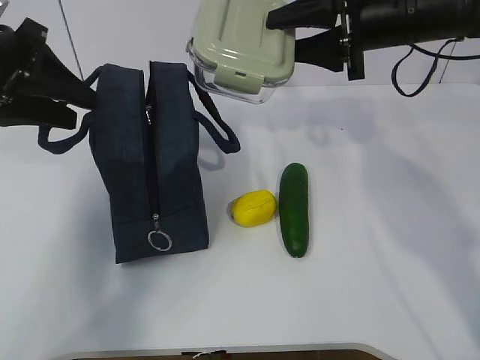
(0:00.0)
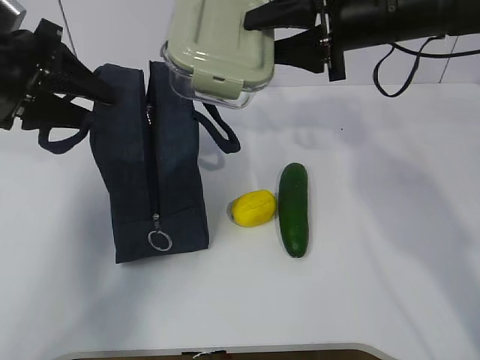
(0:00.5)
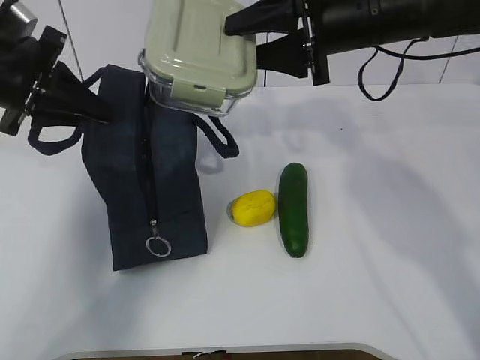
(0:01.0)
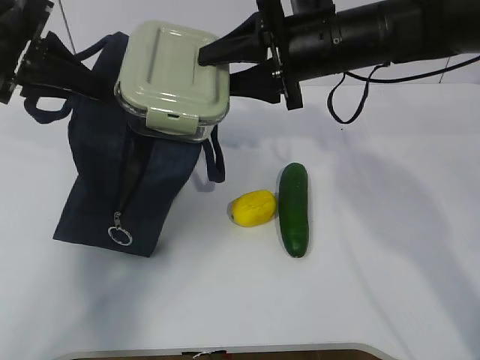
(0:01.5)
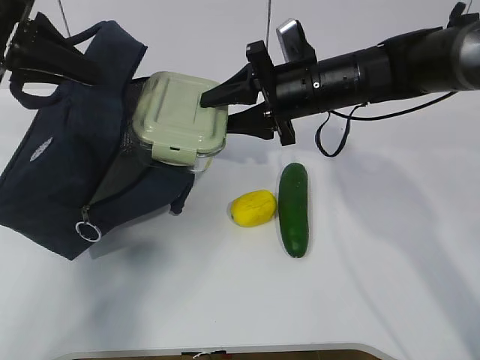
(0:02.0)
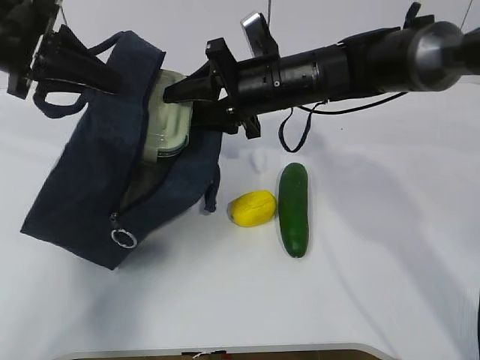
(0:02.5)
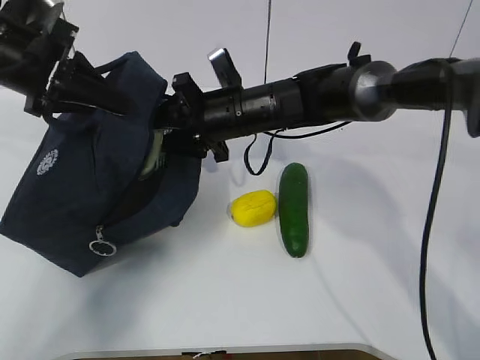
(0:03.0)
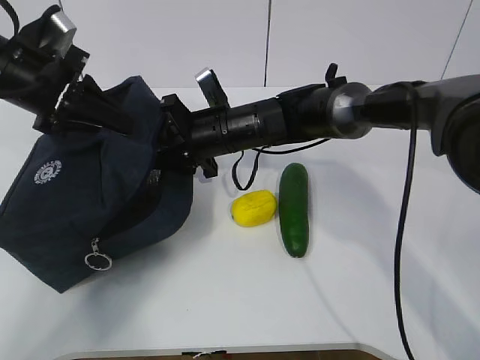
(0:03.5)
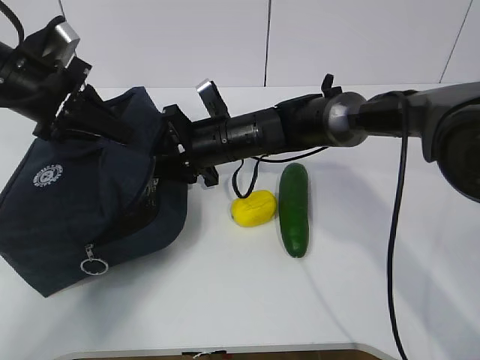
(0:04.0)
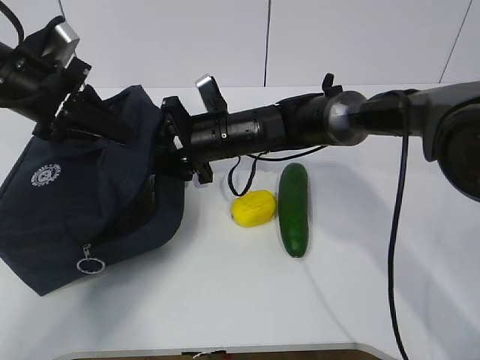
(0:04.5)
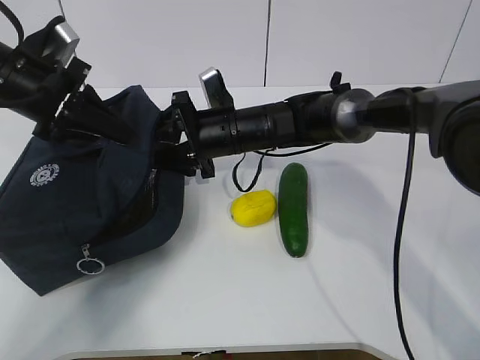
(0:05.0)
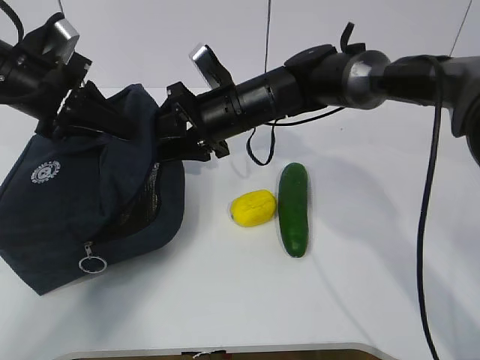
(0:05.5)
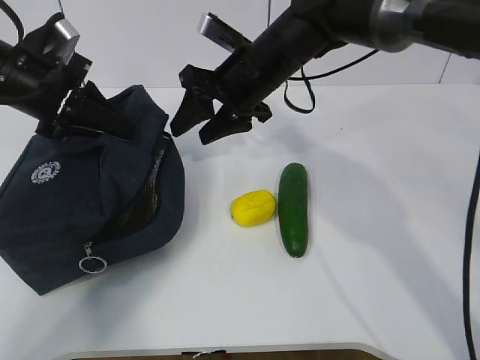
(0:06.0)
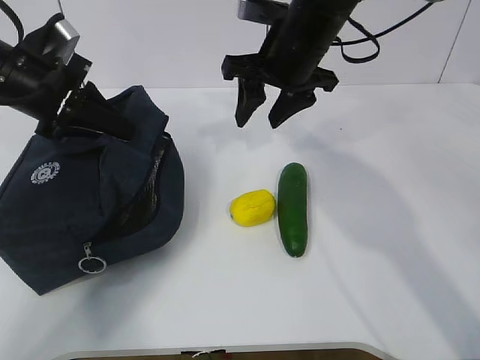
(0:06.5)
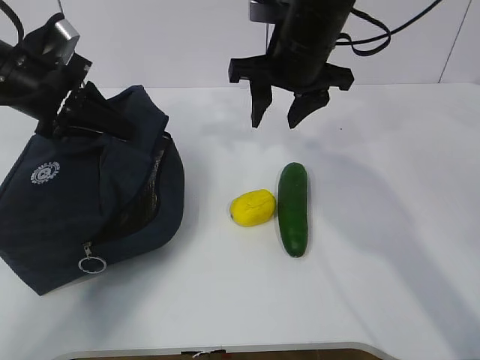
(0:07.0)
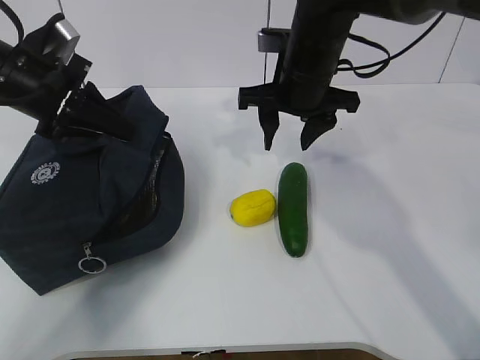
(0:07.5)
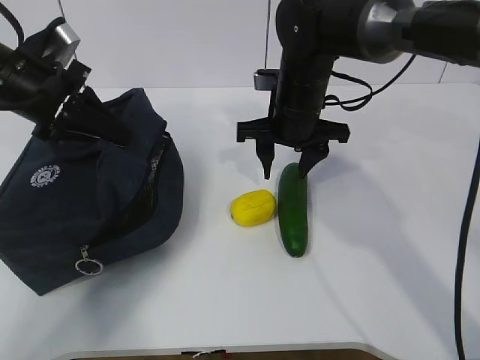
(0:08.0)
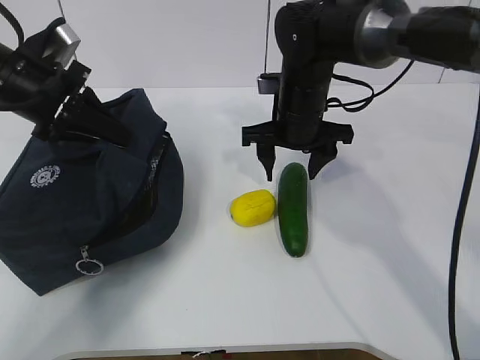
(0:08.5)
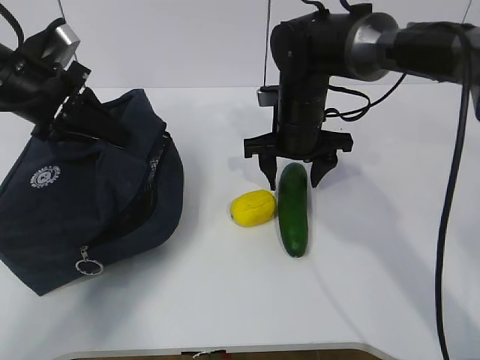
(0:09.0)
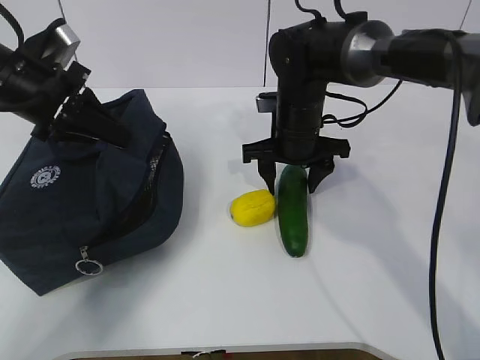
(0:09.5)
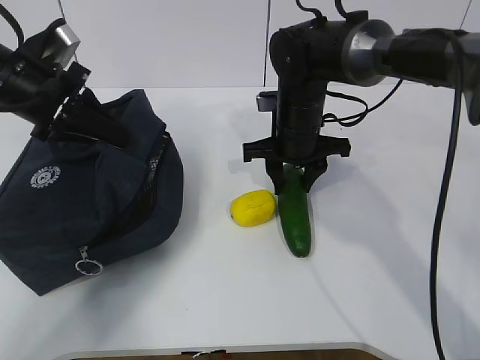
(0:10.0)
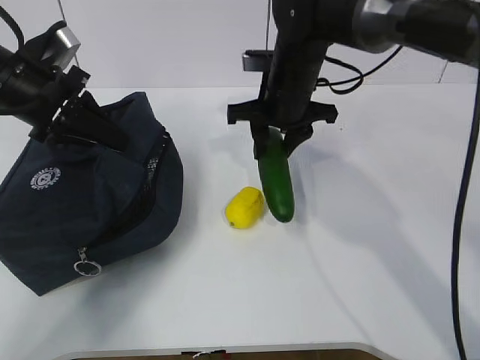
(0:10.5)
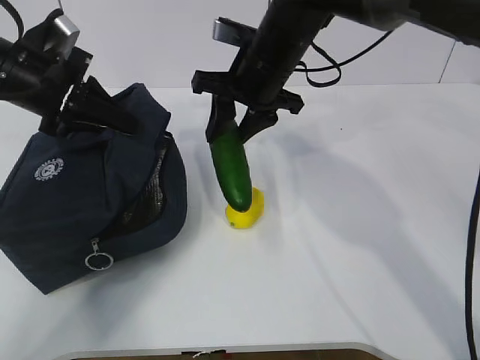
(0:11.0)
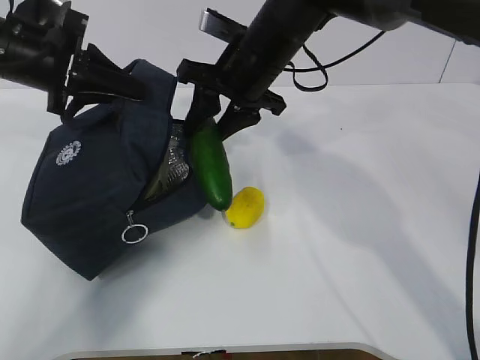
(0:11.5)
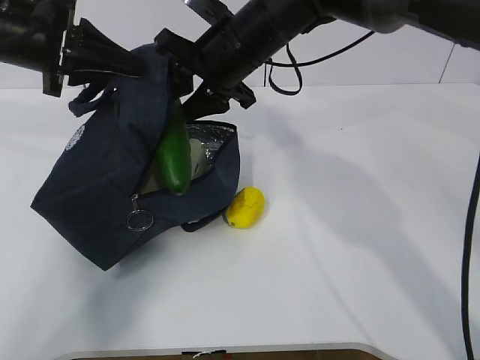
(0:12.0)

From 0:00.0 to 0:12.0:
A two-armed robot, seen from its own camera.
Step, from 0:00.0 to 0:05.0: Place the box into the package with the right gripper.
Step, from 0:05.5 to 0:09.5: Grasp the cucumber with the right gripper.
From 0:00.0 to 0:02.0: The left gripper closes up. Meanwhile the right gripper shifts some 10 cm downward and to the left.
From 0:02.0 to 0:04.0: The left gripper heads downward, covering about 10 cm. The right gripper goes roughly 15 cm to the left and downward.
From 0:04.0 to 0:06.0: The right gripper goes roughly 10 cm upward.
From 0:06.0 to 0:08.0: The right gripper ends up roughly 5 cm from where it was.
From 0:08.0 to 0:10.0: There are only small adjustments of the grippers.
From 0:10.0 to 0:12.0: The right gripper goes about 10 cm upward and to the left; the left gripper goes approximately 5 cm upward.

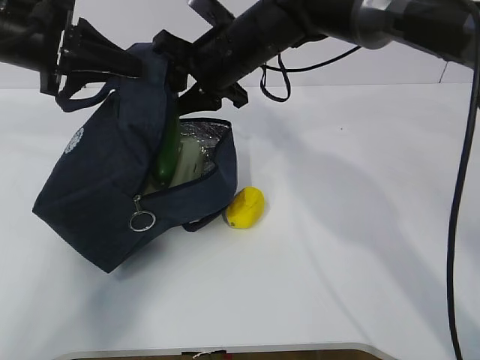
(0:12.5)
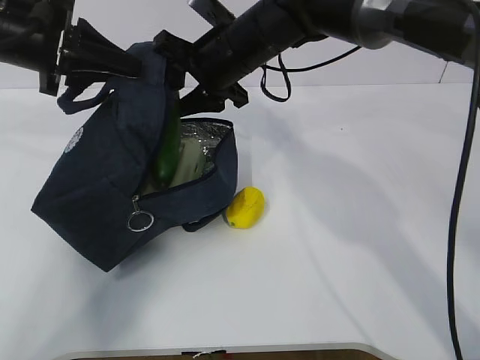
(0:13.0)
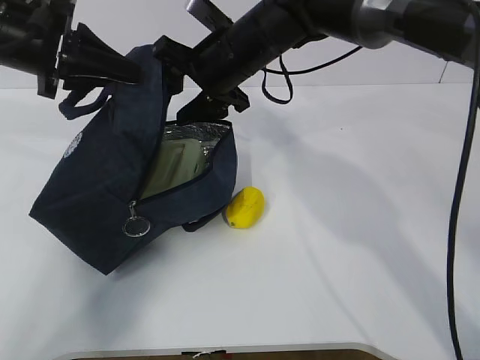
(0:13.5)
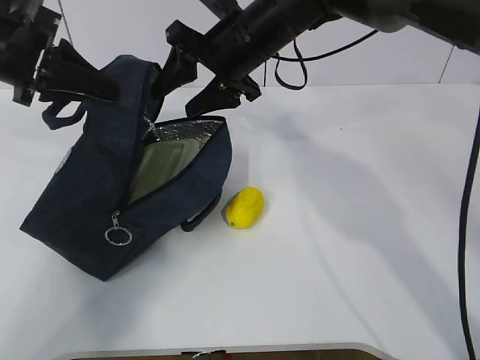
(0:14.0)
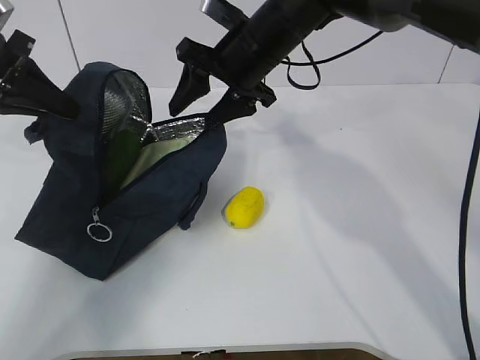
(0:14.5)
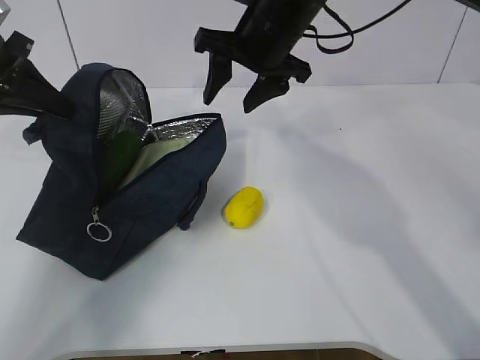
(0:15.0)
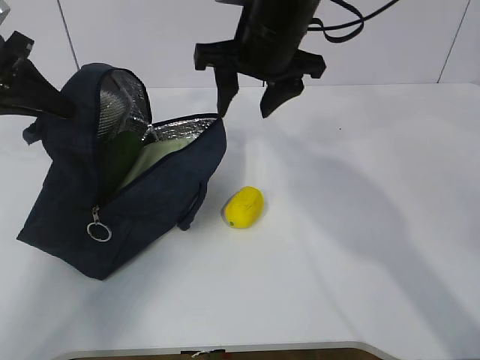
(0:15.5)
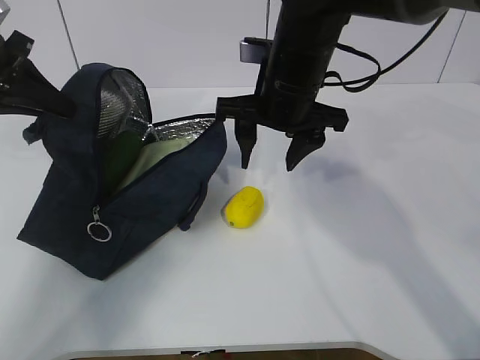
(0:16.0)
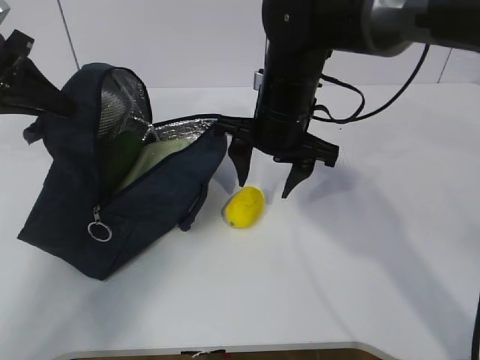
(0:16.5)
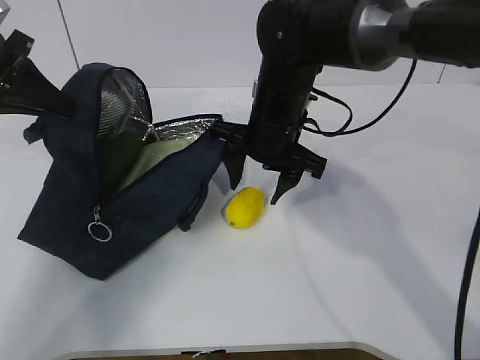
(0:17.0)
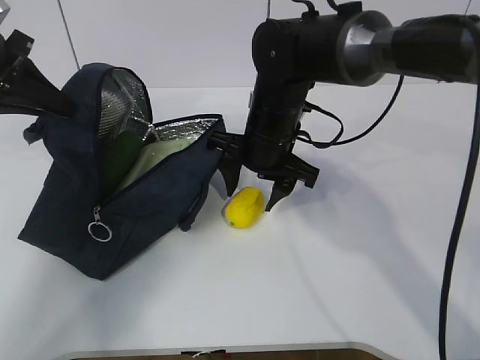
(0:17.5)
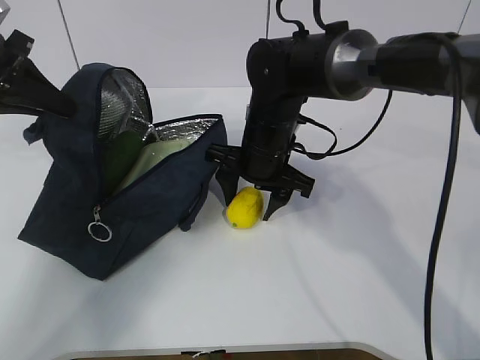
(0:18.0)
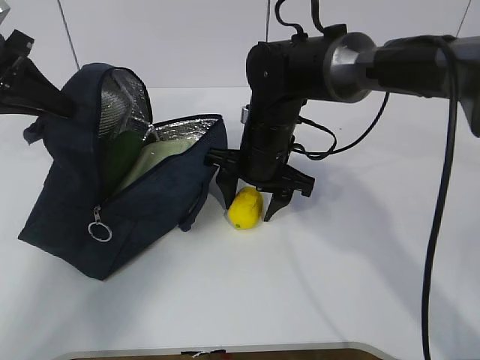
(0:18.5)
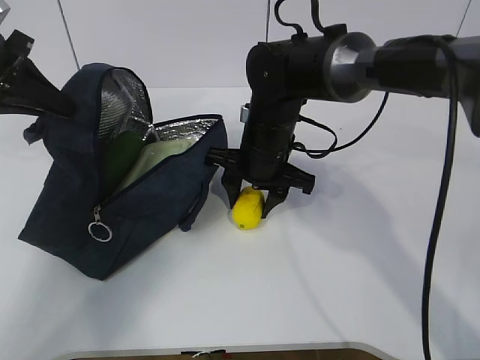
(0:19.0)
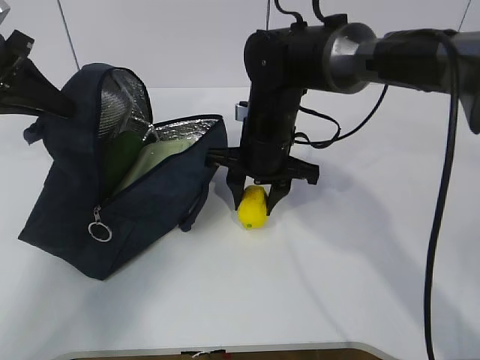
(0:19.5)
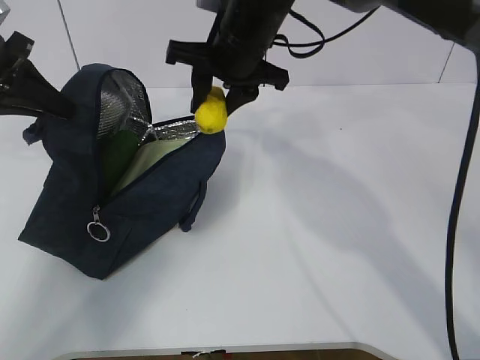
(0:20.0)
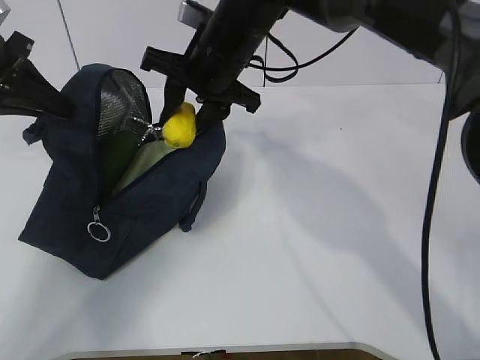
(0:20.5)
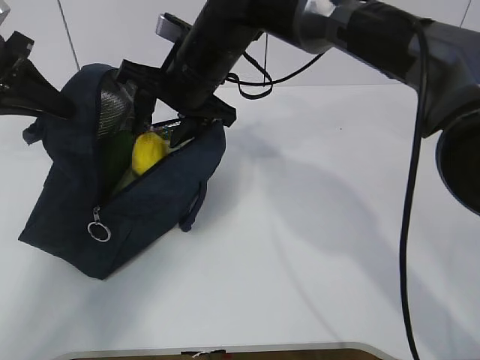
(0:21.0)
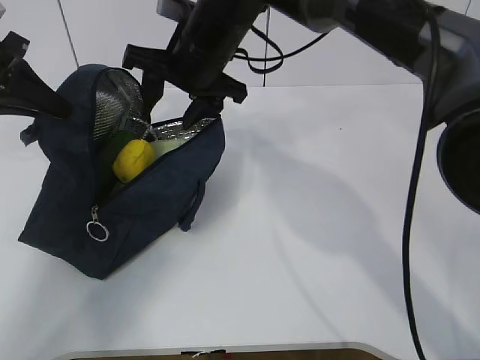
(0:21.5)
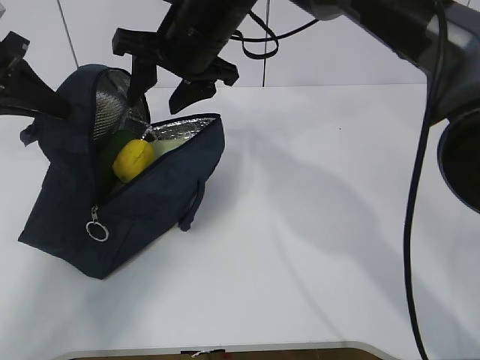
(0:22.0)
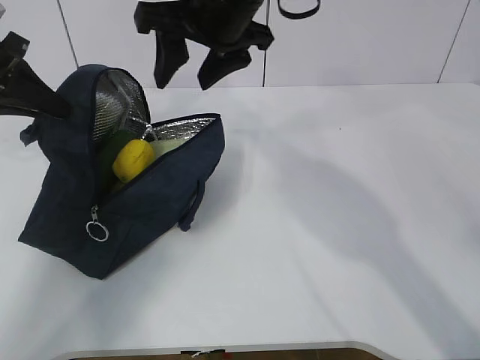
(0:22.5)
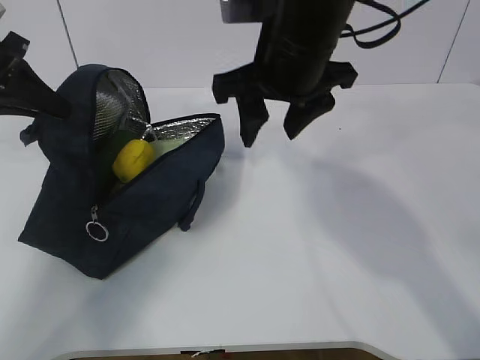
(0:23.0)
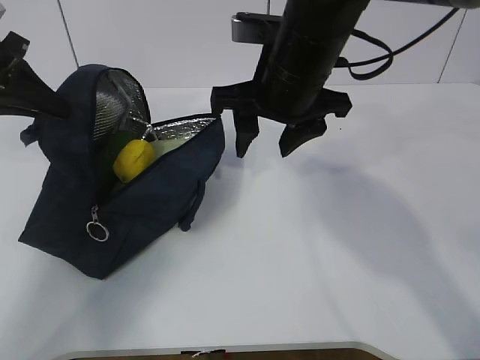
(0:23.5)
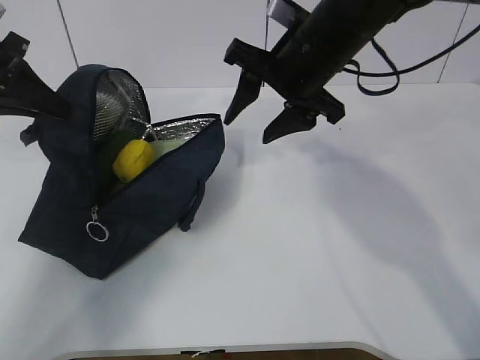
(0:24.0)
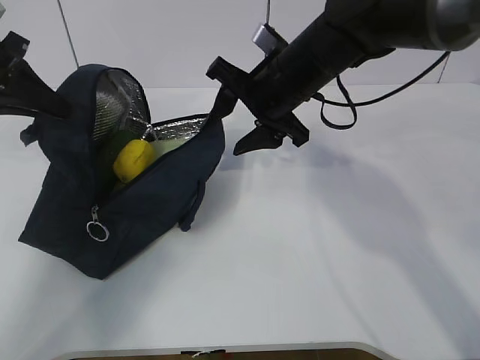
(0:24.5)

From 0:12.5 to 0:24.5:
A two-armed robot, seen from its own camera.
Step, from 0:14.0 to 0:19.0: Grasp the lemon with the right gripper.
Step, from 0:19.5 to 0:21.0: Place the lemon into the package with the right gripper.
From 0:12.5 to 0:14.5: The left gripper shifts approximately 5 cm to the left.
From 0:14.5 to 0:16.5: The right gripper moves backward, approximately 5 cm.
From 0:16.5 to 0:18.5: The right gripper heads downward, covering about 5 cm.
From 0:18.5 to 0:20.5: The right gripper moves upward, about 10 cm.
From 0:20.5 to 0:22.5: The right gripper heads upward, covering some 5 cm.
From 0:22.5 to 0:24.5: The right gripper travels downward and to the right by about 10 cm.

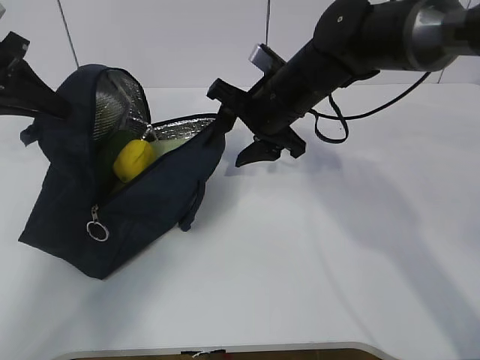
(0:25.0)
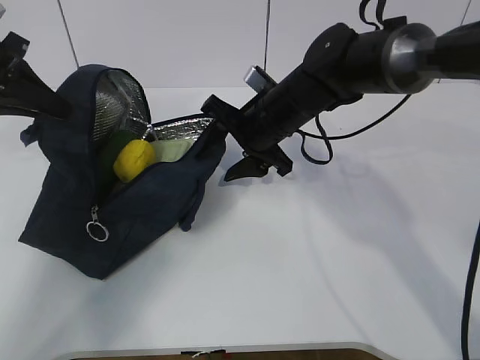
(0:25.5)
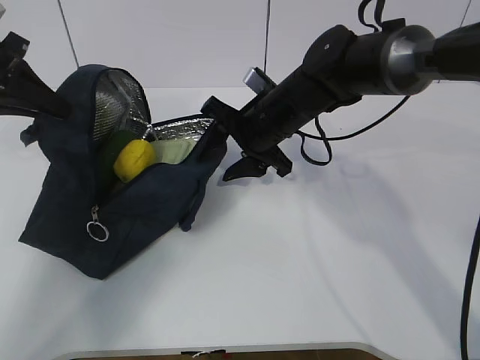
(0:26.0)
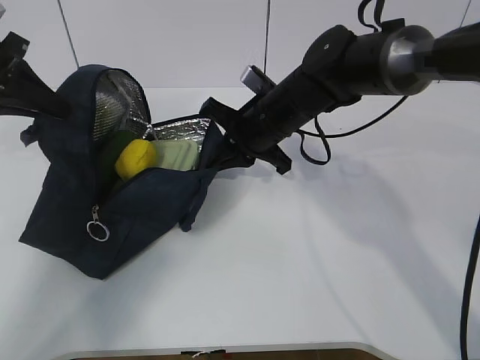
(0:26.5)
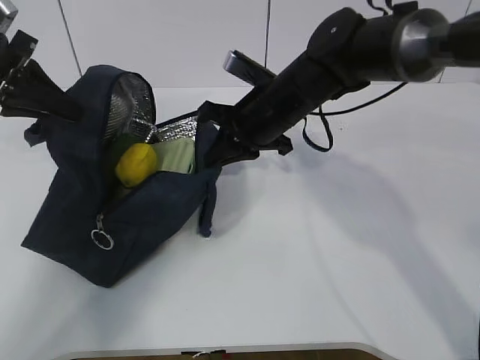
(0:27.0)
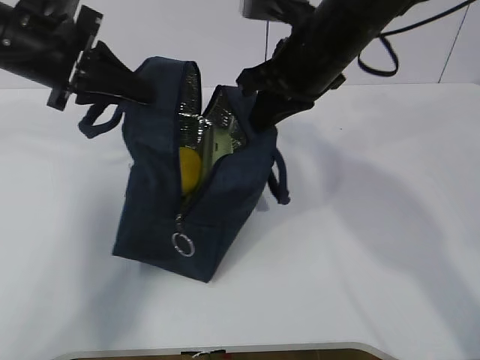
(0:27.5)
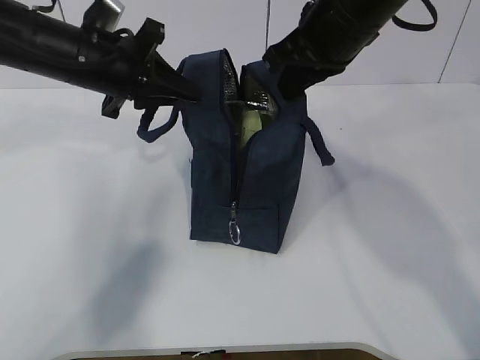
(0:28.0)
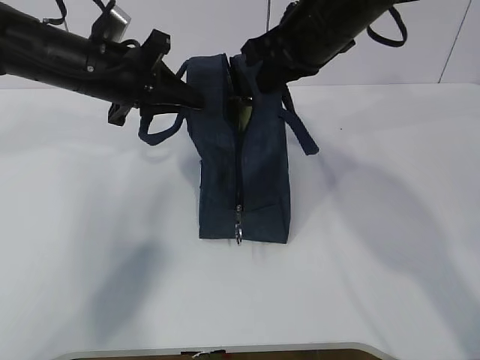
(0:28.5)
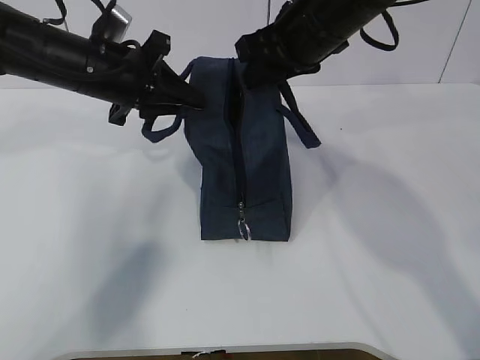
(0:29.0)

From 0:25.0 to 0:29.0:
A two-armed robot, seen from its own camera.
From 0:25.0 to 0:27.0: The right gripper closes.
From 0:27.0 to 0:29.0: The right gripper goes roughly 10 cm upward, and opens up. Meanwhile the left gripper goes approximately 15 cm to the right.
